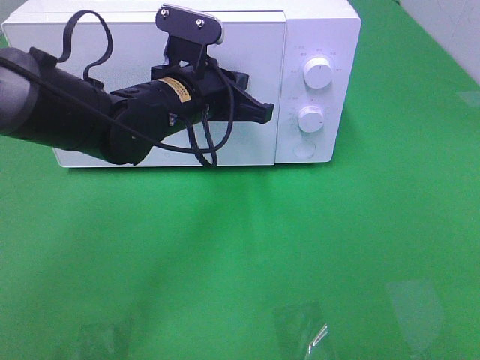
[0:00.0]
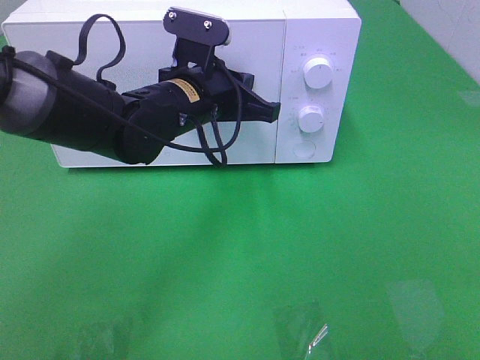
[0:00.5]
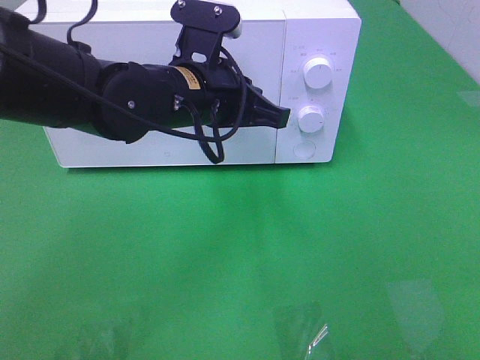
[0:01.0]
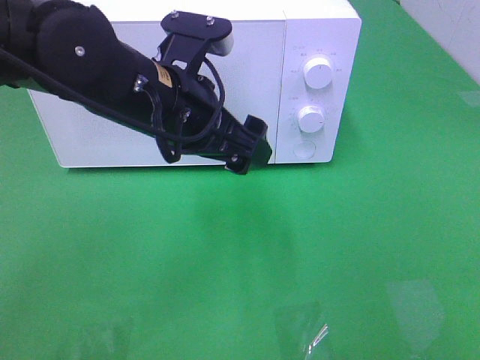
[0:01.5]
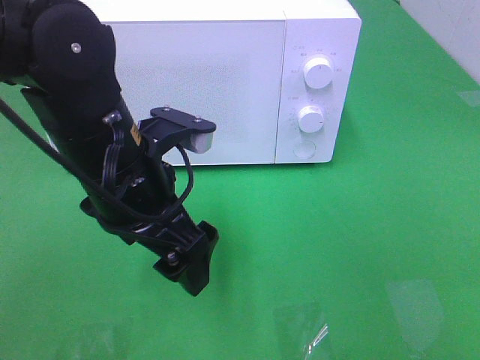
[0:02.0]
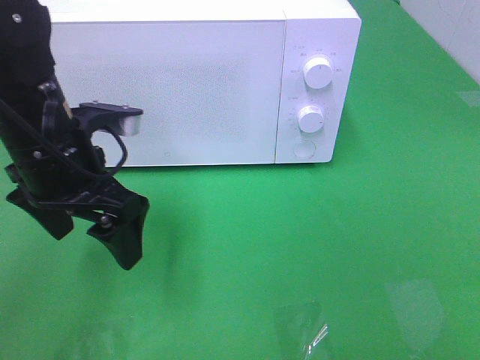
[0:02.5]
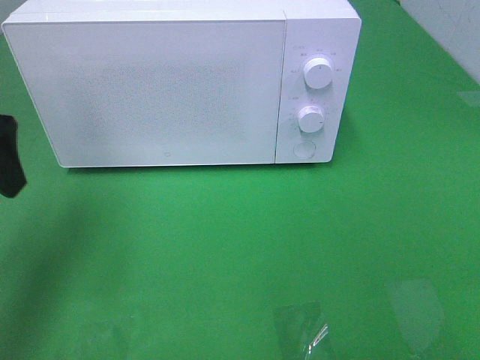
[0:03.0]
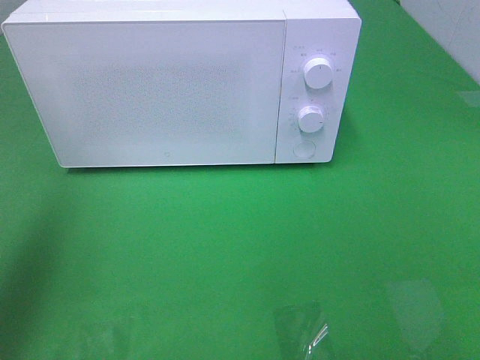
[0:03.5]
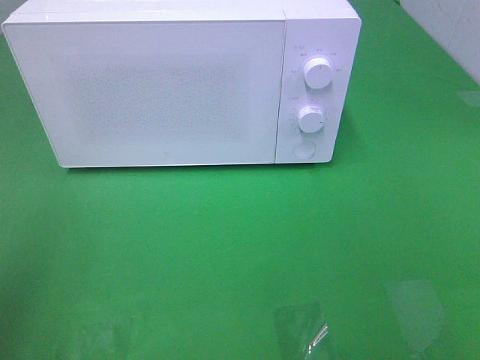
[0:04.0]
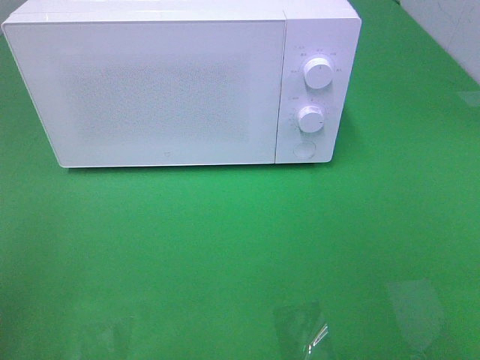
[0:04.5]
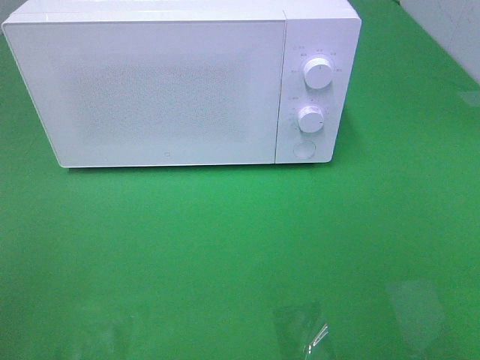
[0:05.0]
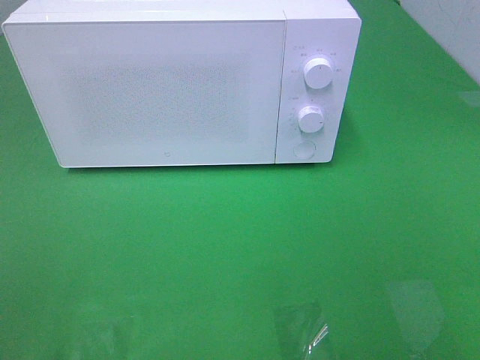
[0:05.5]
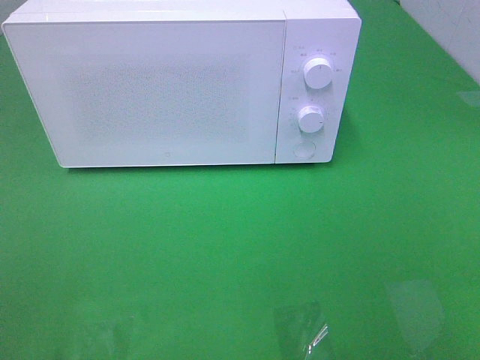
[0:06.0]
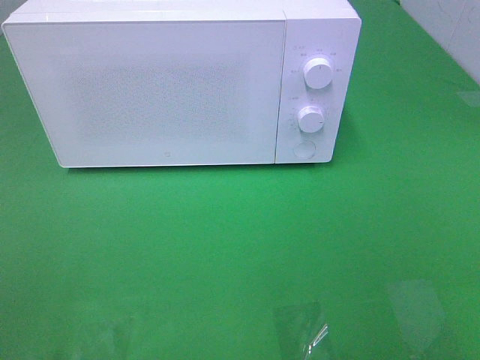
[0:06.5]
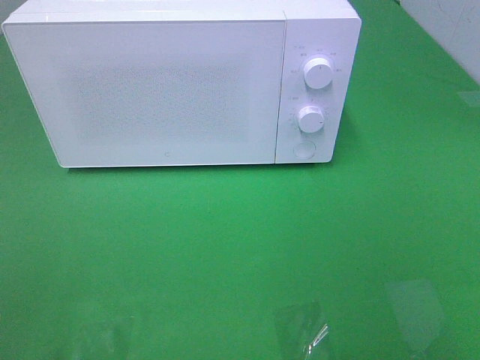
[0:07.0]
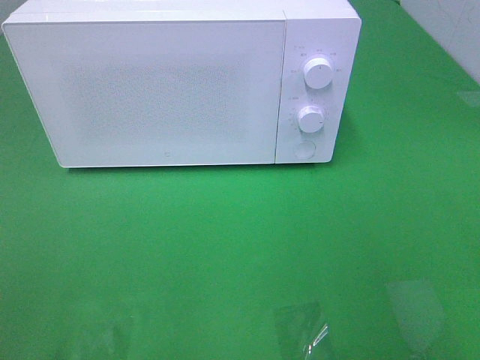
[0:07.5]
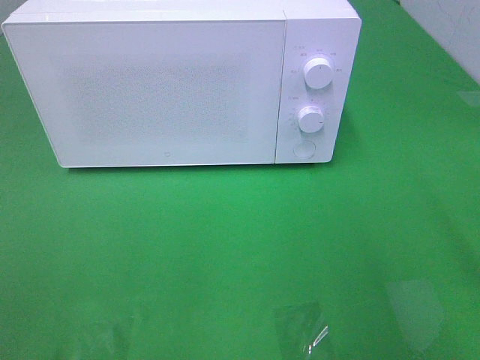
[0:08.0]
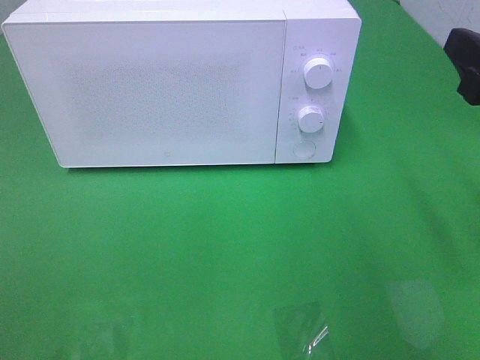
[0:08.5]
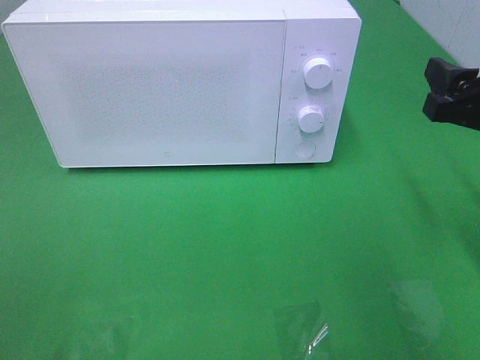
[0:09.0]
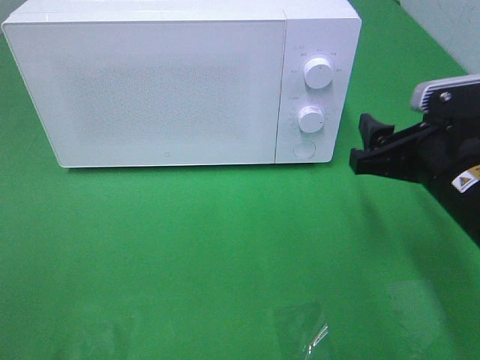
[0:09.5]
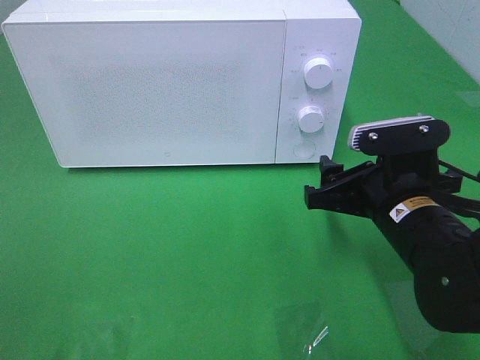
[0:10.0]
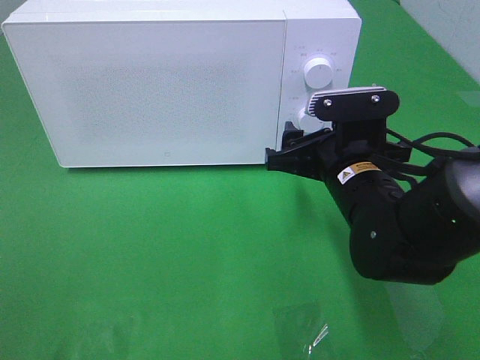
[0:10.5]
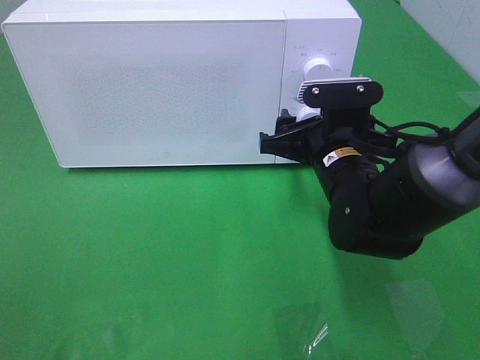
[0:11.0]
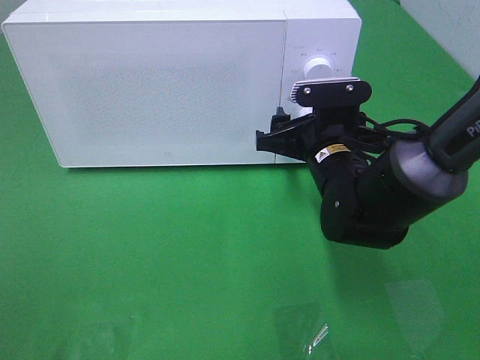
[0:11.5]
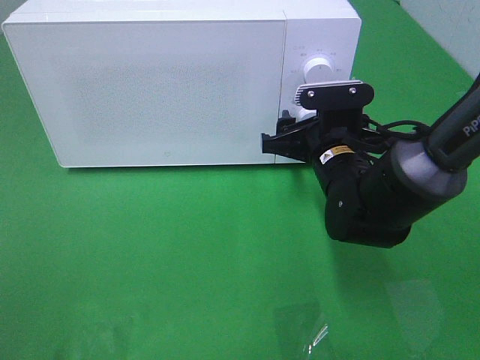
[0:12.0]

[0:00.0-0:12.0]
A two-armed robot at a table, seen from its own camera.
Task of the whole recording: Heat the burger.
0:00.0 to 0:02.0: The left gripper goes roughly 10 cm backward, and opens its fingers.
0:02.0 to 0:04.0: The left gripper shifts roughly 30 cm to the left, backward and upward.
0:08.0 to 0:10.0: The right gripper moves downward, to the left and forward, approximately 20 cm.
0:10.0 to 0:12.0: The right gripper moves forward, some 10 cm.

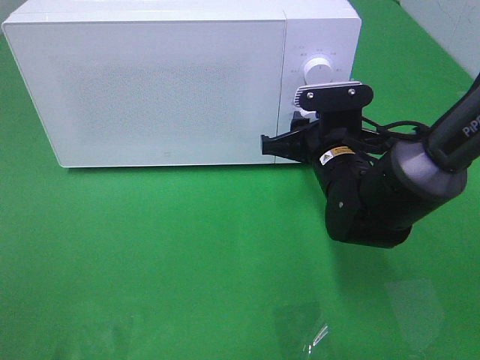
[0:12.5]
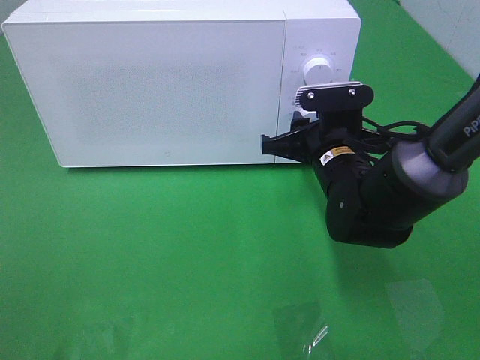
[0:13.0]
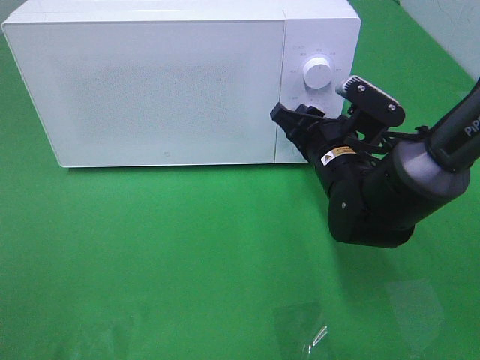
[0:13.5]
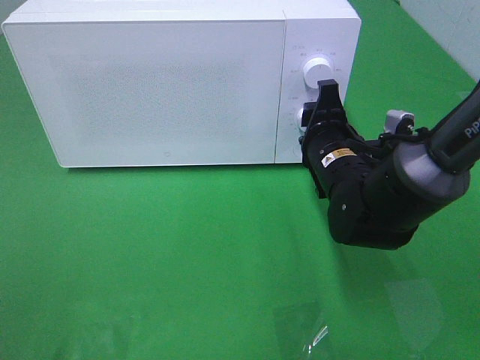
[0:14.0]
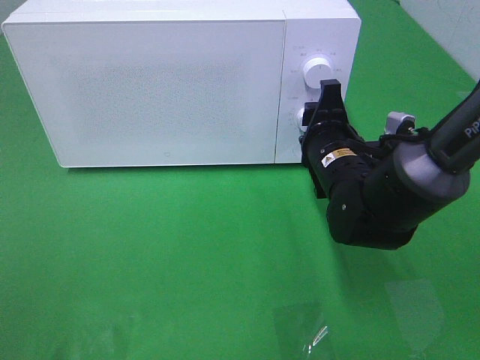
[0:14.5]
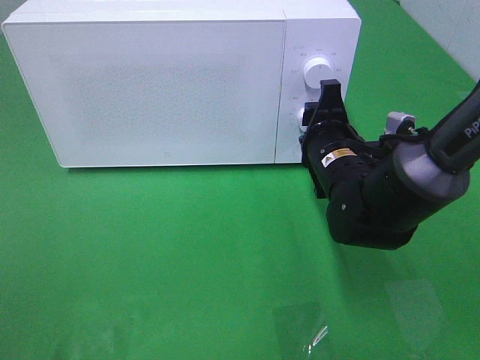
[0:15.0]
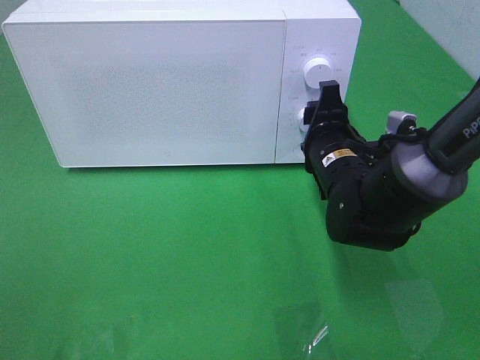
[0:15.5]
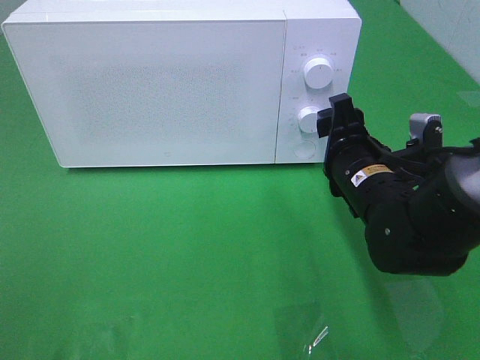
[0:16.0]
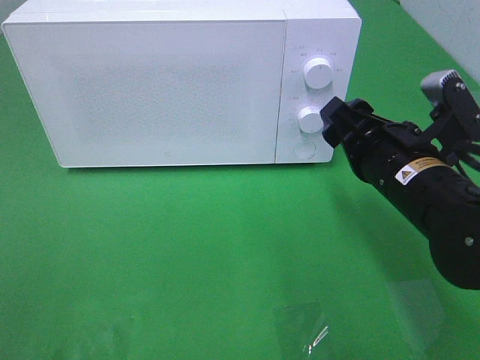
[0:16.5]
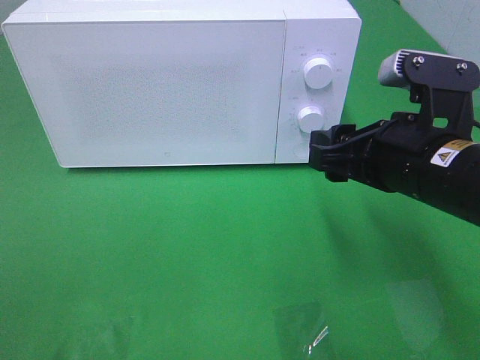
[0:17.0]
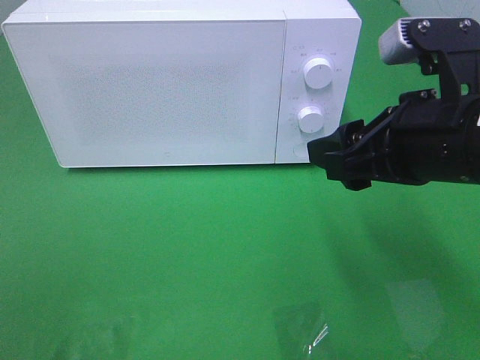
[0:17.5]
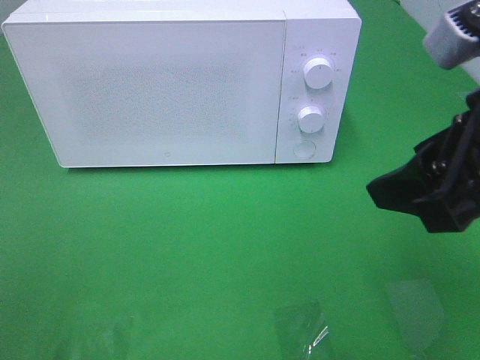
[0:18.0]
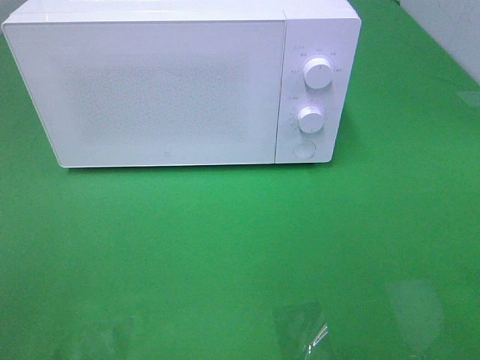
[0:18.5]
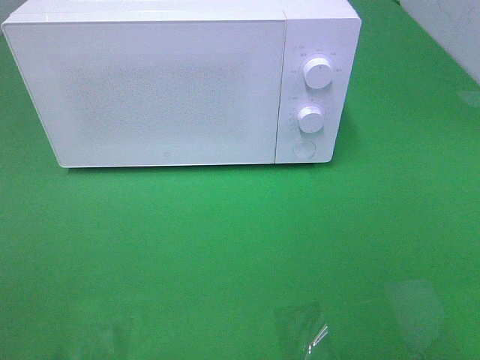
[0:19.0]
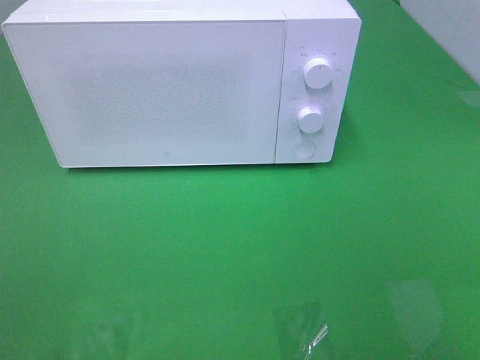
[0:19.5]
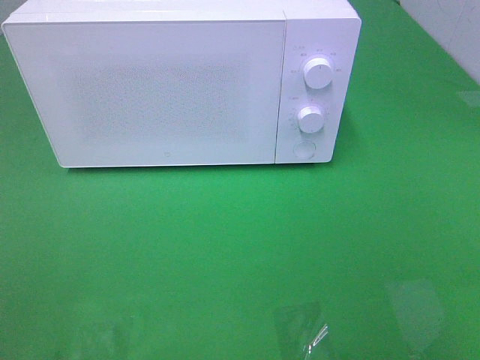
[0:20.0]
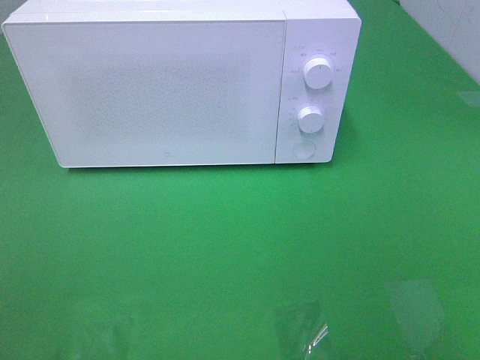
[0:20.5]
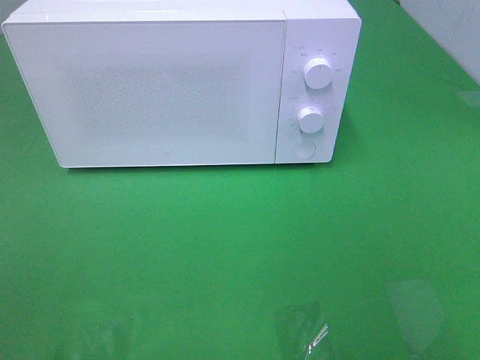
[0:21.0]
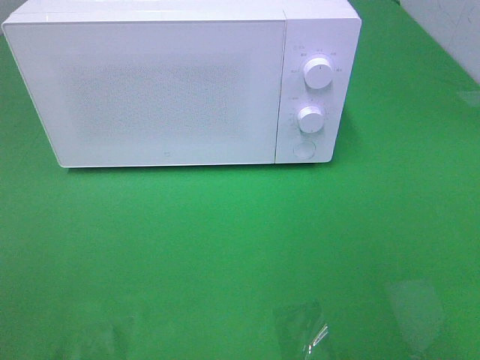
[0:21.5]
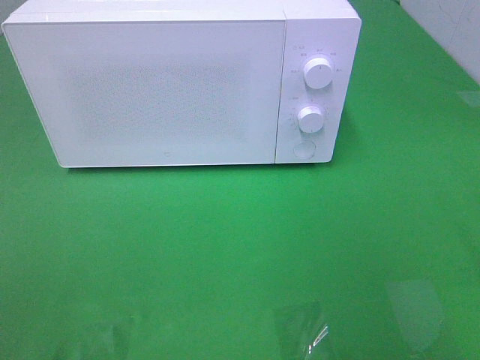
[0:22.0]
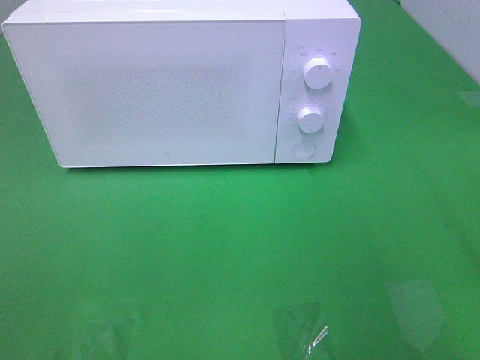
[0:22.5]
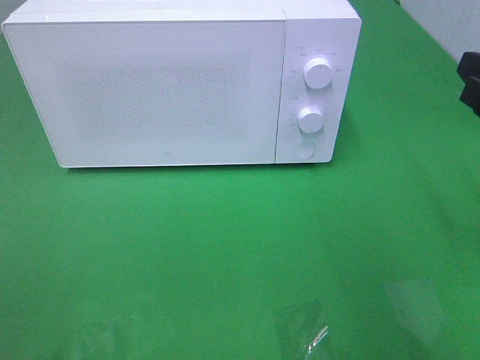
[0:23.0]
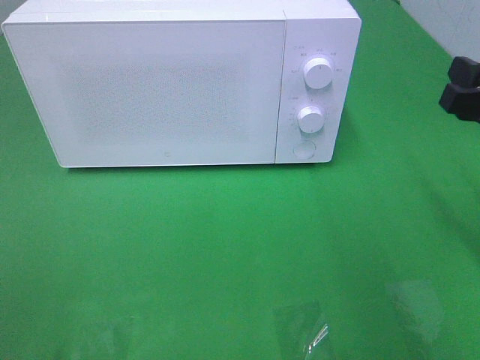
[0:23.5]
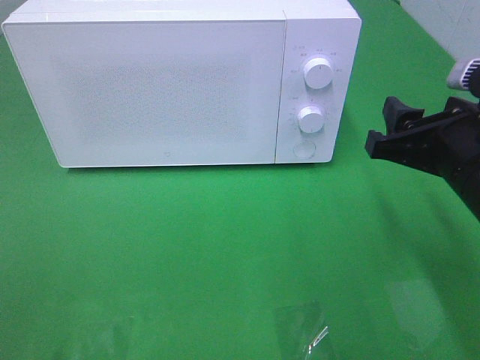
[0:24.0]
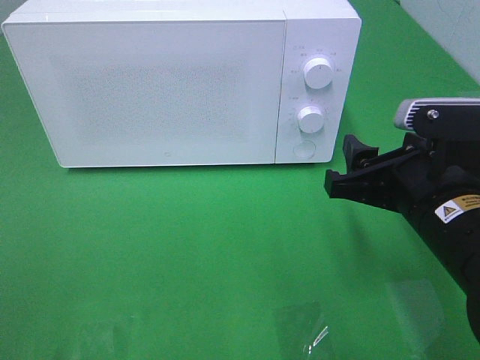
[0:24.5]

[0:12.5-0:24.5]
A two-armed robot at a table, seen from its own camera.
Task of the whole recording: Heat the burger.
Step, 0:12.5 to 0:15.5: Right hand: twist timer button.
0:14.5 to 0:16.5: The right gripper goes some 10 cm backward and upward.
0:16.5 to 0:18.5: The right gripper shifts about 25 cm upward, backward and to the right.
0:22.5 to 0:24.5: The right gripper shifts roughly 15 cm downward and to the left.

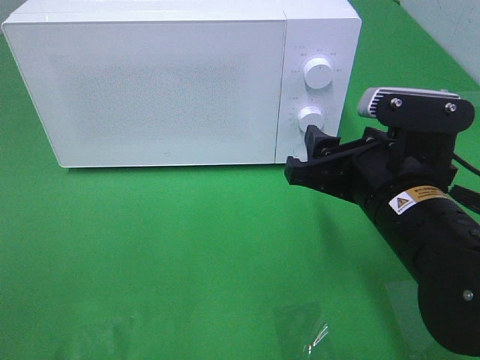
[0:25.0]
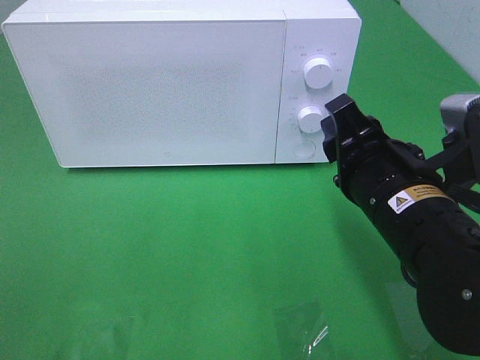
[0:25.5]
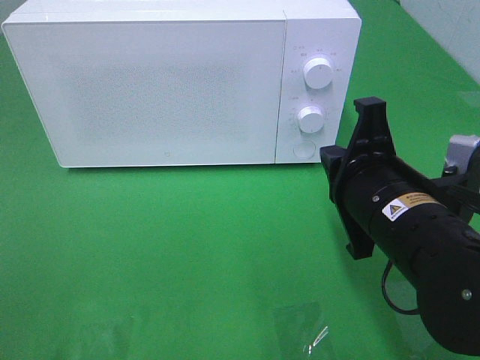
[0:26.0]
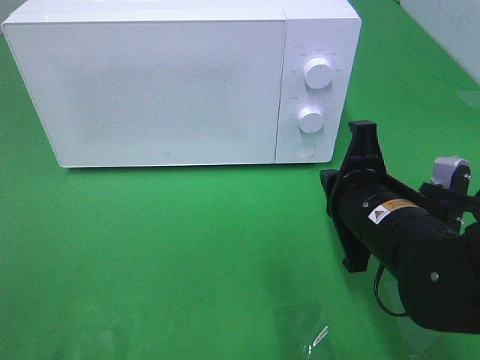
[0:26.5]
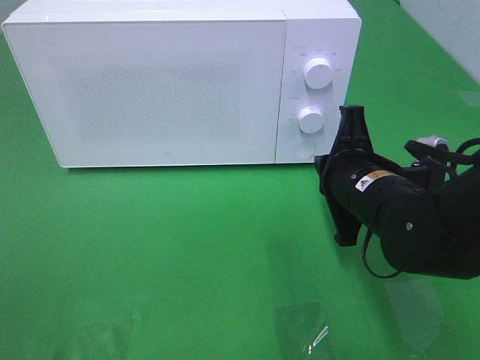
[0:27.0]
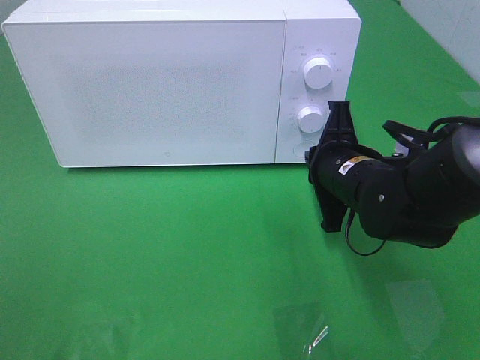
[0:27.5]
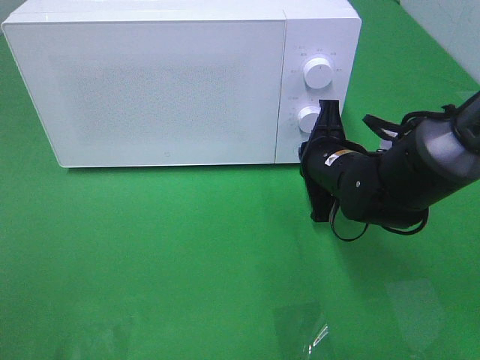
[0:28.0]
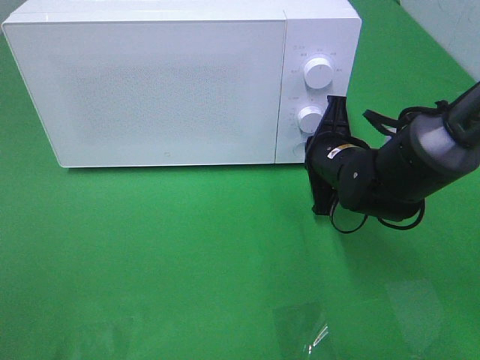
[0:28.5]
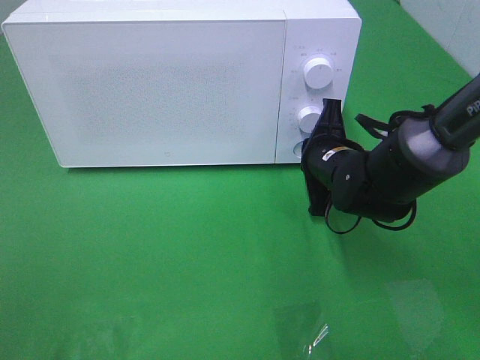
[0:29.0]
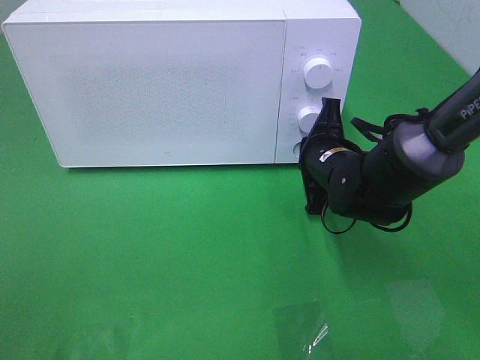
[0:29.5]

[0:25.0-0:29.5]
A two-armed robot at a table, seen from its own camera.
Task of the whole recording: Heat the burger.
0:25.0 to 0:27.0: The right gripper travels forward by some 5 cm, and closes its fingers.
0:27.0 to 0:29.5: The right gripper moves forward, some 10 cm.
